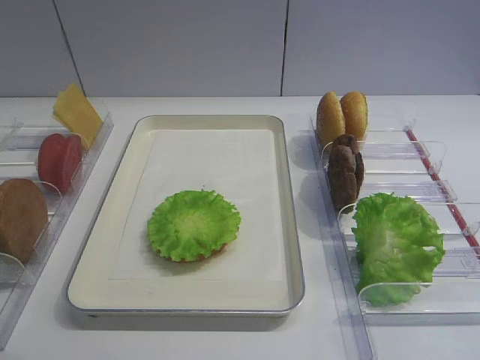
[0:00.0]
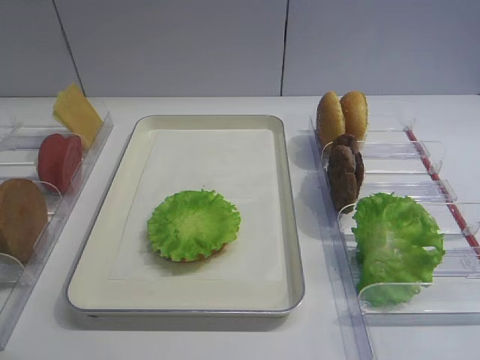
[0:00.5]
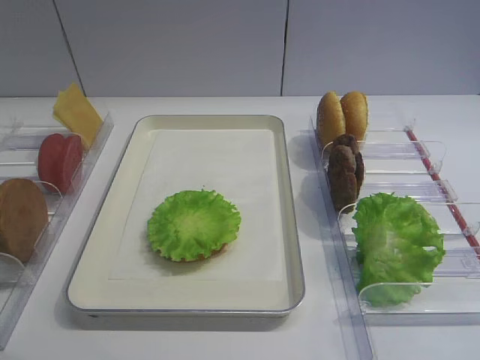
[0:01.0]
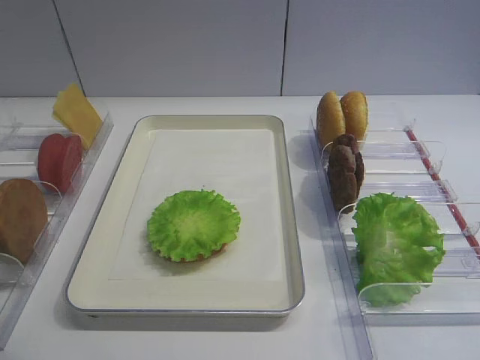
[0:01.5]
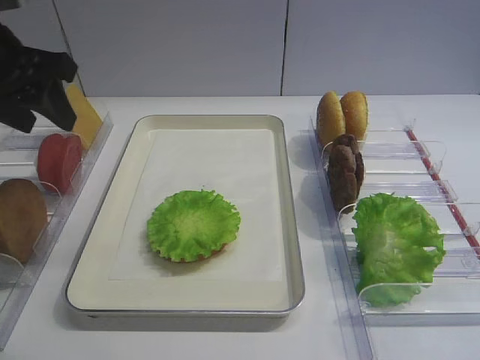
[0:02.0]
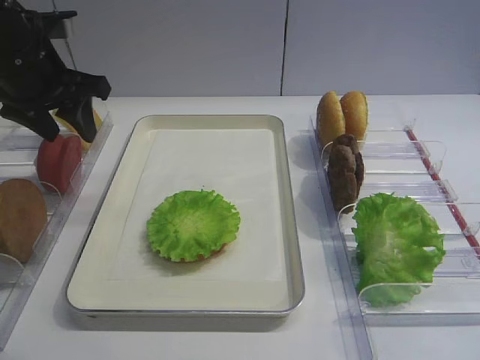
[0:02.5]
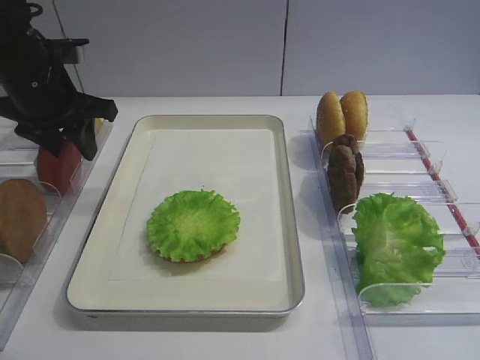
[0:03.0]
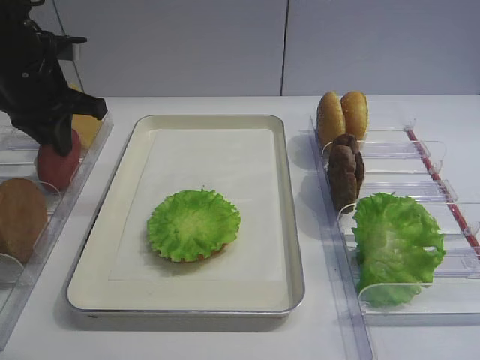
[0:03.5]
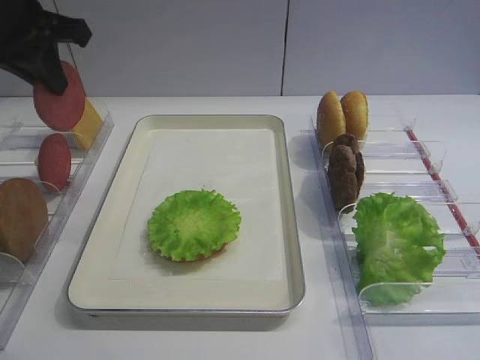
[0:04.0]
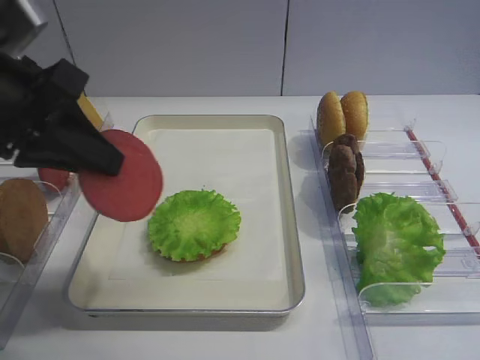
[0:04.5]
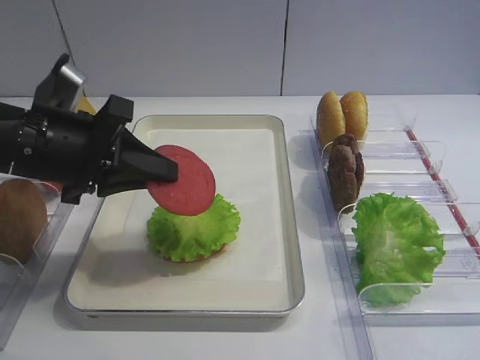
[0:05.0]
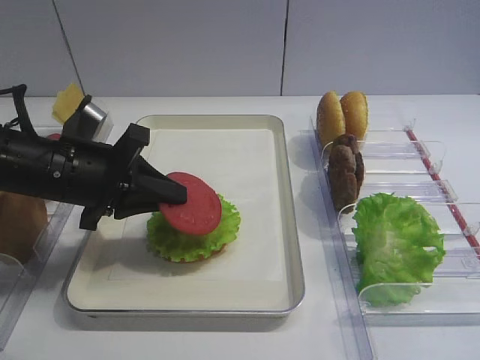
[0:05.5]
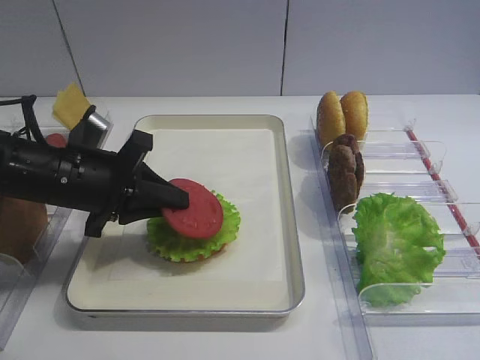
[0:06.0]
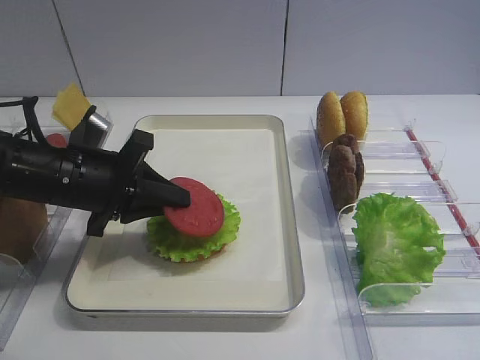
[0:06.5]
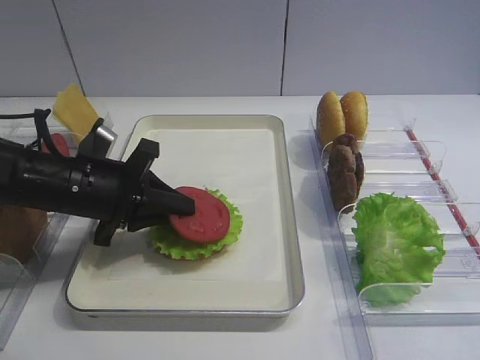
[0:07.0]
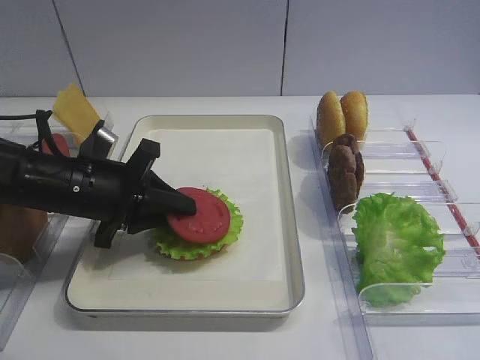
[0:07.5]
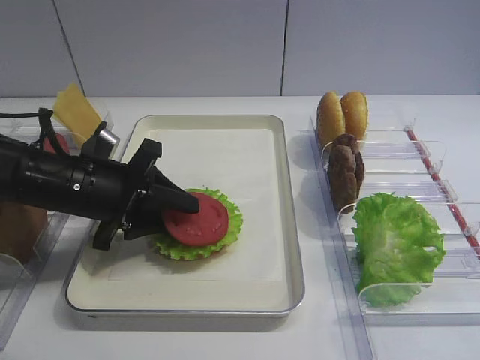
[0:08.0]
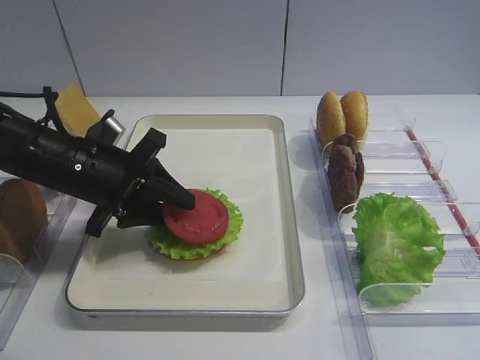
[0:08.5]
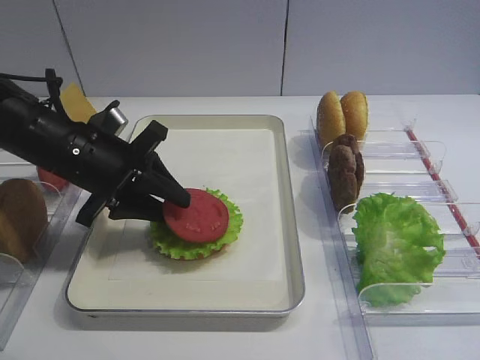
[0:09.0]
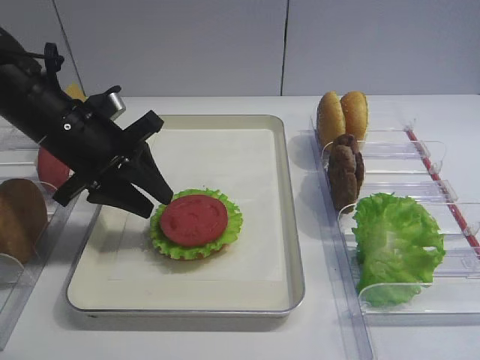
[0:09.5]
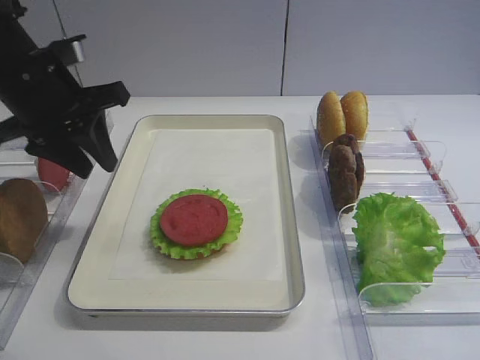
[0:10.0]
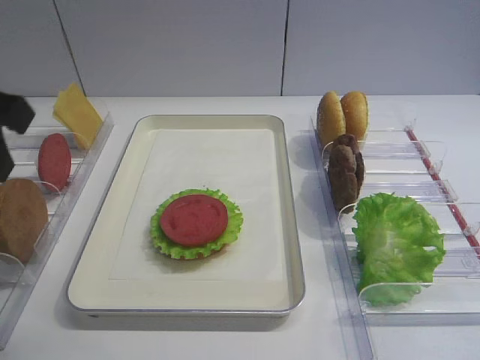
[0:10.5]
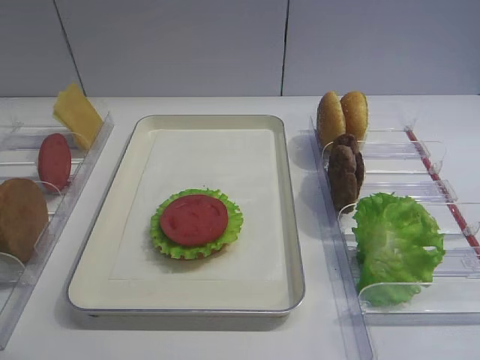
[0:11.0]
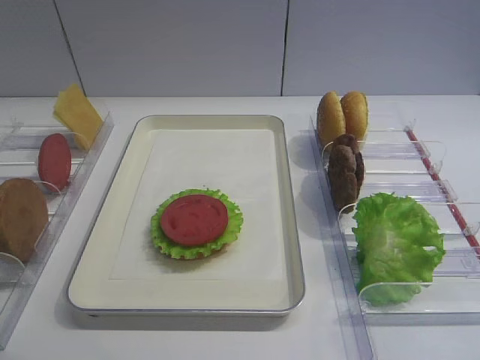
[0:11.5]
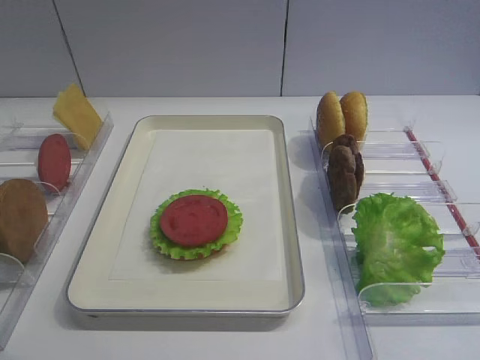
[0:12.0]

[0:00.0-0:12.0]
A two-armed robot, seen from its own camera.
Step, 0:00.0 to 0:03.5: Pick up the tomato slice with the left gripper.
Step, 0:04.0 to 0:09.5: Place the tomato slice on the lettuce leaf with the left gripper.
0:02.0 to 0:04.0: The left gripper shifts some 5 cm forward, and closes.
0:04.0 to 0:06.0: The left gripper shifts about 20 cm downward and backward.
0:06.0 to 0:08.0: The left gripper opens its fingers.
0:08.0 to 0:10.0: The left gripper shifts some 10 cm upward.
0:10.0 to 0:12.0: The left gripper is displaced backward by roughly 35 cm.

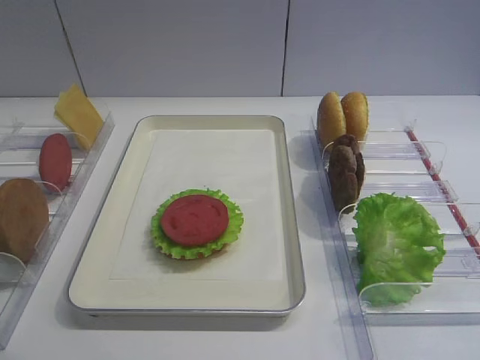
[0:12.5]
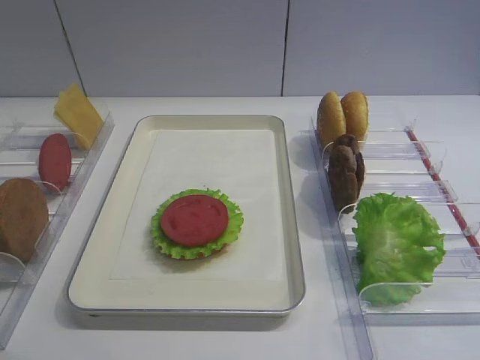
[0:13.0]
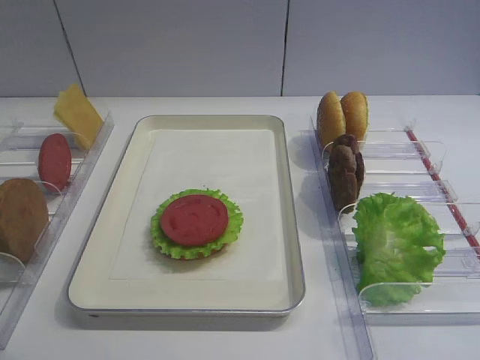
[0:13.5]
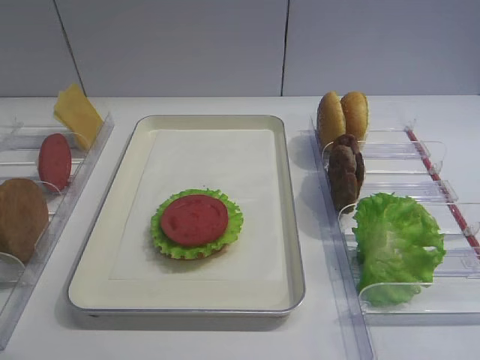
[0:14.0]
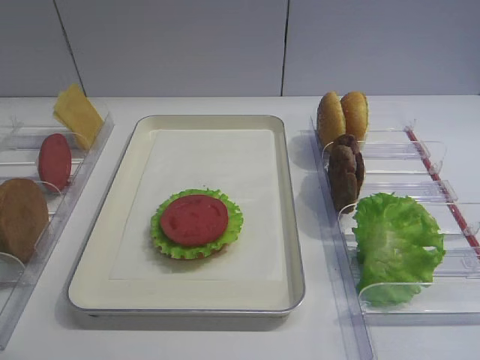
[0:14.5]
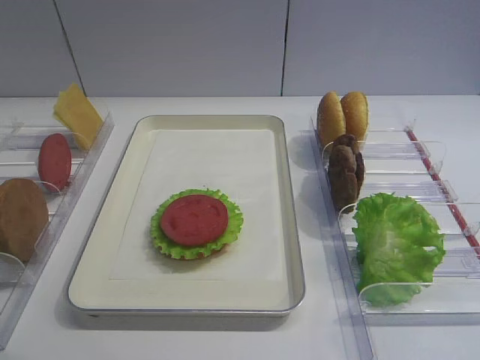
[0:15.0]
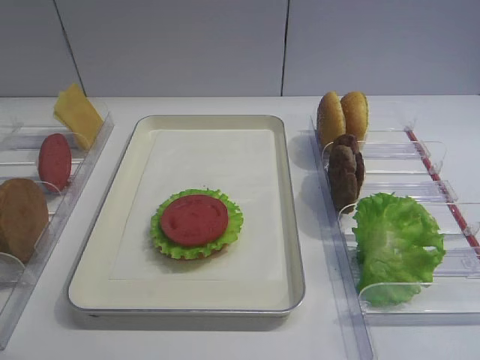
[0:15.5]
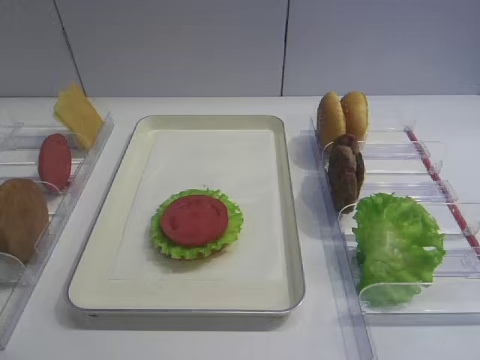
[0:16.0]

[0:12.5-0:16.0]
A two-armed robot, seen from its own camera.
0:14.5 to 0:16.0: Neither gripper changes place.

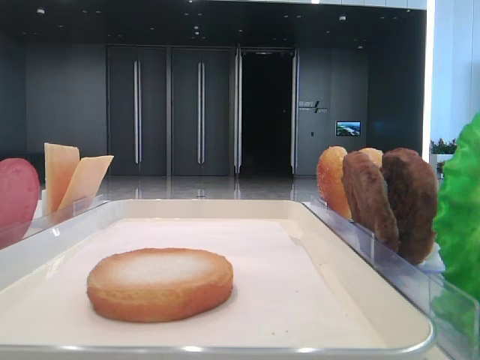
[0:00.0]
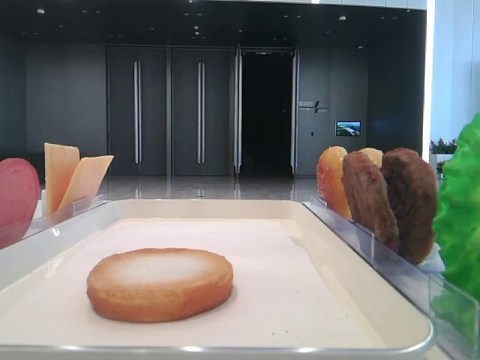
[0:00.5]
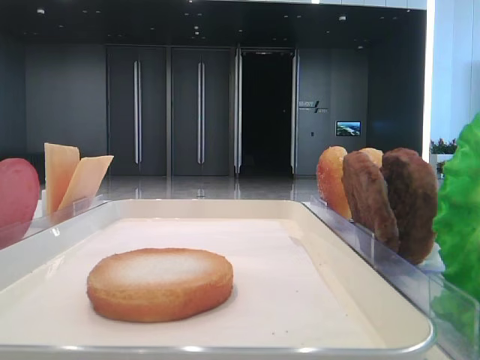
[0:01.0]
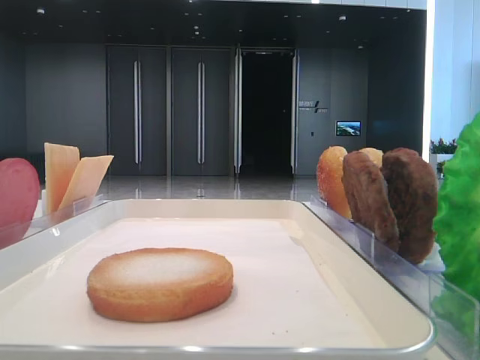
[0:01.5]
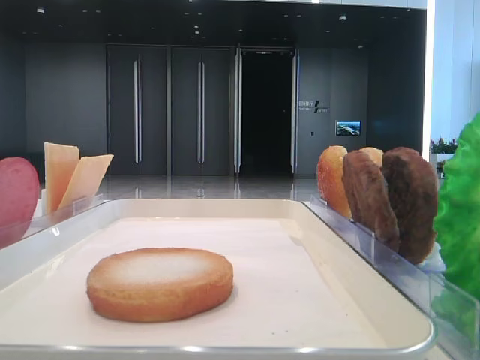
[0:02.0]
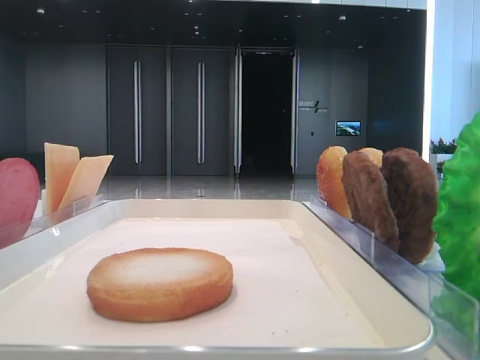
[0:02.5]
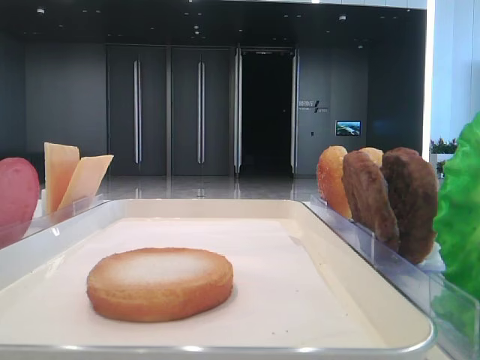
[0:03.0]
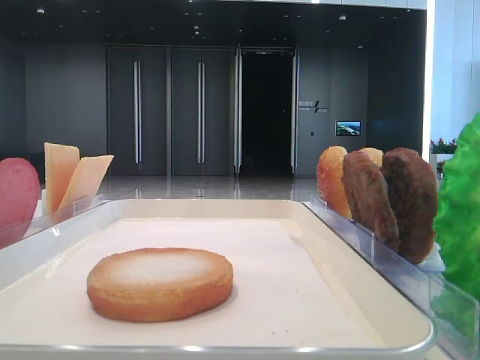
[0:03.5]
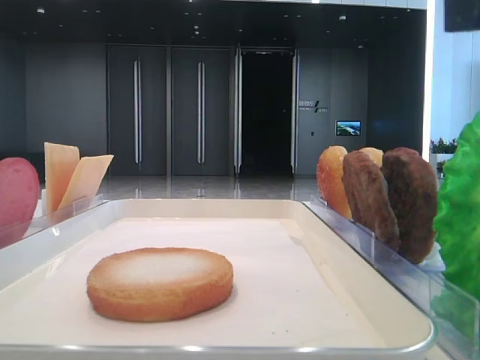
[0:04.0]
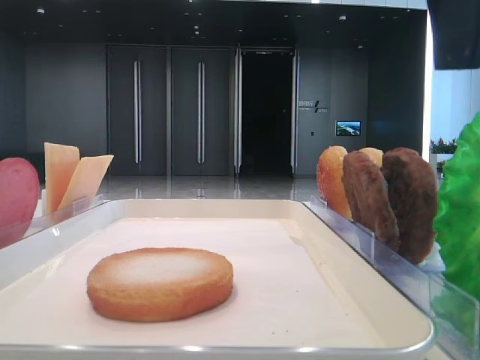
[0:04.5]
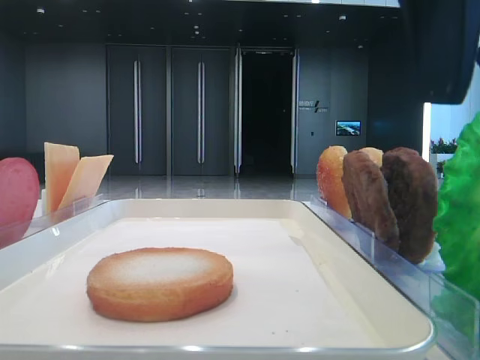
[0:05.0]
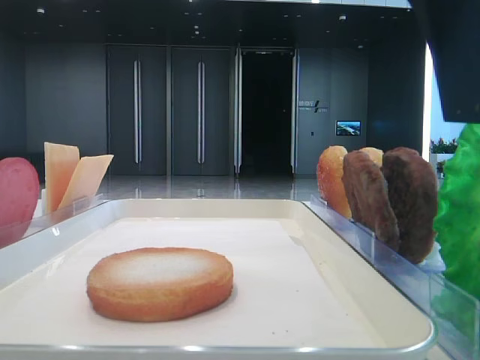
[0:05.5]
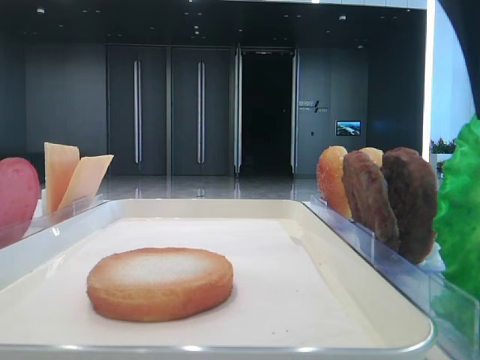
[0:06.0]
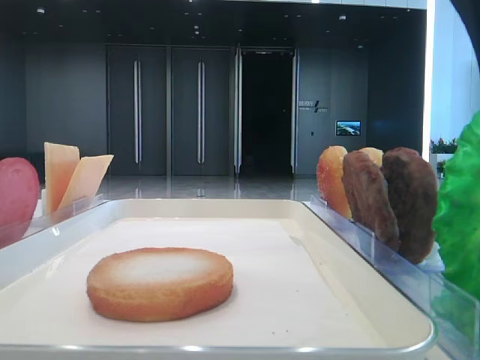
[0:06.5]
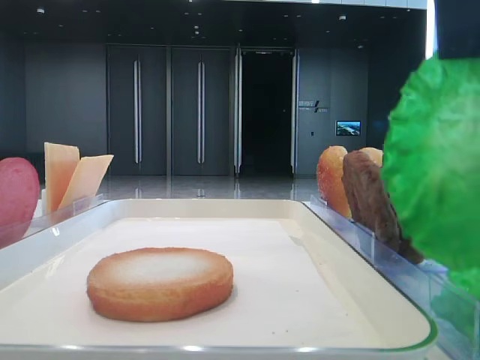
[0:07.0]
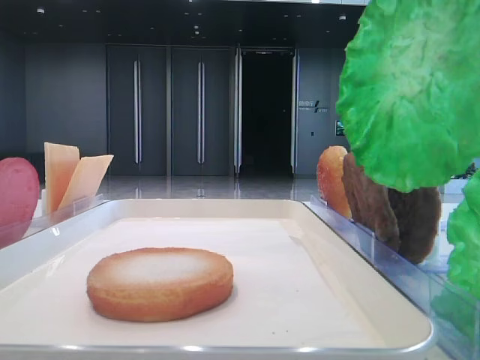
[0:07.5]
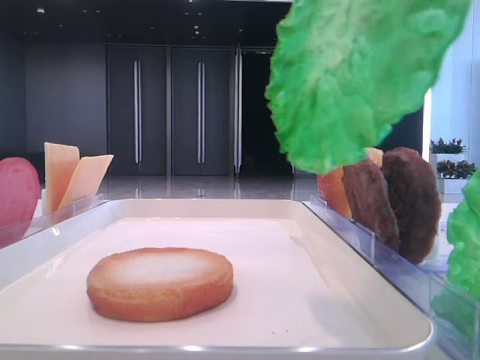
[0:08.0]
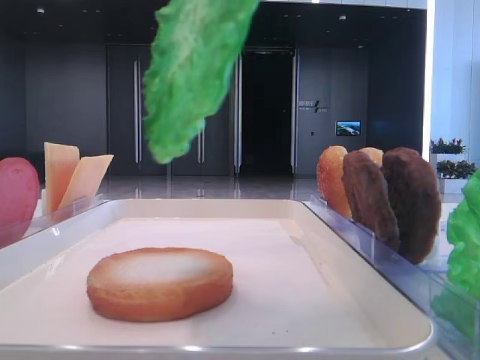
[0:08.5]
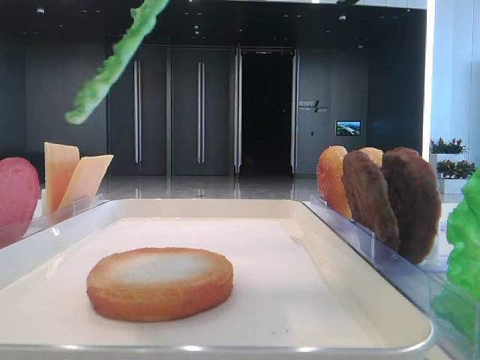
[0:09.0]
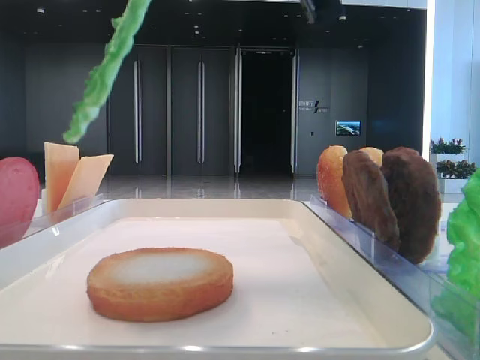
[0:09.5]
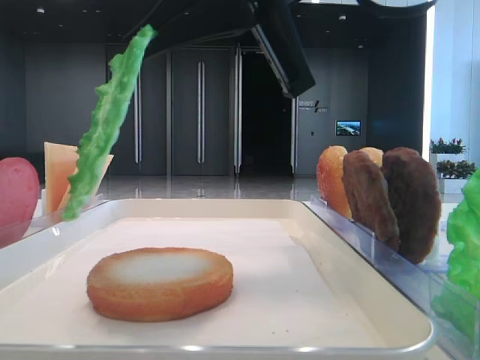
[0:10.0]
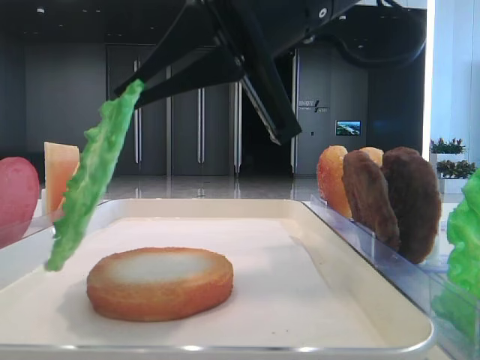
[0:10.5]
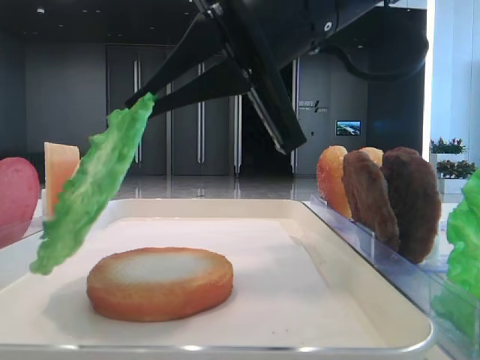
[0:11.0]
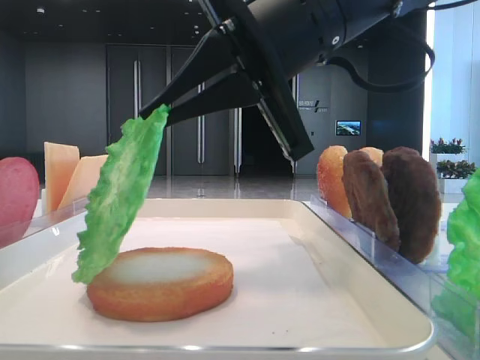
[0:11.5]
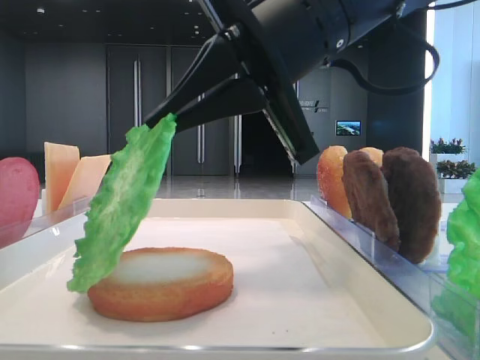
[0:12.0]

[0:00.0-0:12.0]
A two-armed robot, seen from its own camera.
Step, 0:00.0 to 0:06.5: Grab the lettuce leaf with the right hand.
0:02.0 to 0:04.0: The right gripper heads to the left, covering some 15 cm.
0:04.0 to 0:06.0: The right gripper closes its fingers.
0:06.0 to 0:08.0: The right gripper goes approximately 5 cm upward.
0:08.0 to 0:10.0: The right gripper is displaced downward, forward and to the left by roughly 10 cm.
0:10.0 to 0:12.0: The right gripper changes place by about 5 cm.
